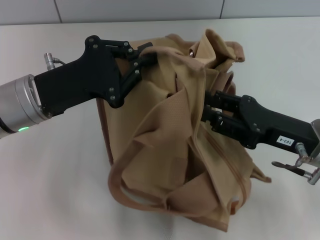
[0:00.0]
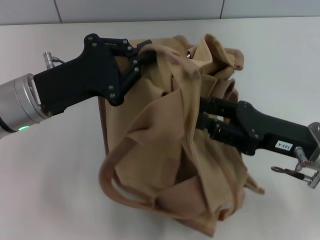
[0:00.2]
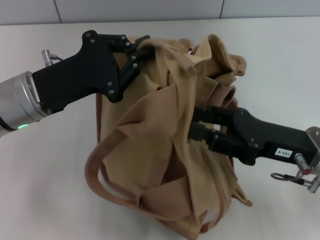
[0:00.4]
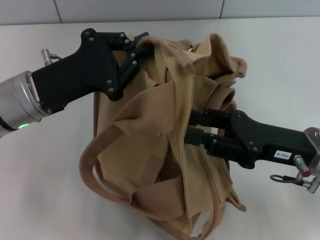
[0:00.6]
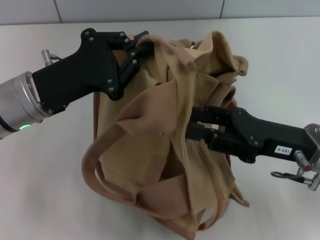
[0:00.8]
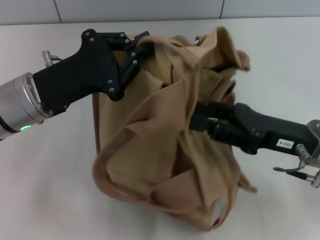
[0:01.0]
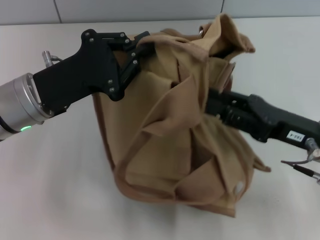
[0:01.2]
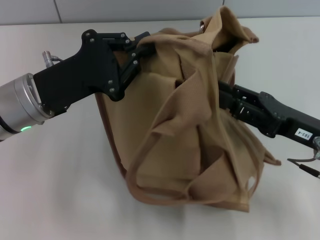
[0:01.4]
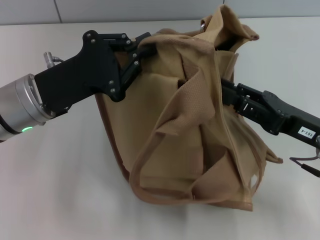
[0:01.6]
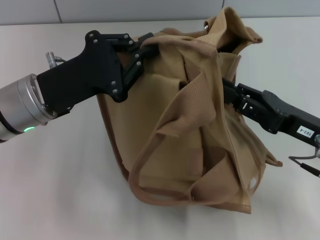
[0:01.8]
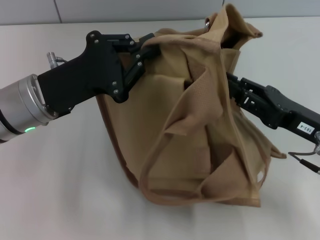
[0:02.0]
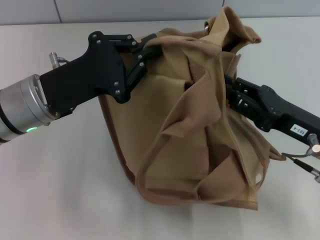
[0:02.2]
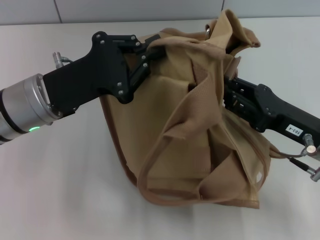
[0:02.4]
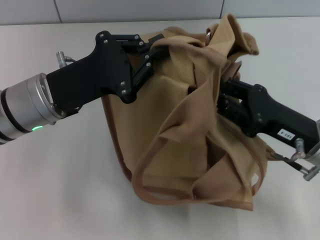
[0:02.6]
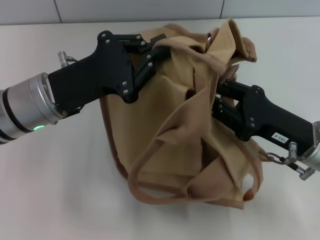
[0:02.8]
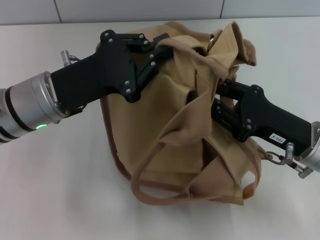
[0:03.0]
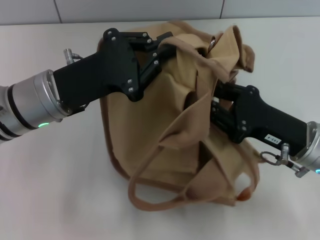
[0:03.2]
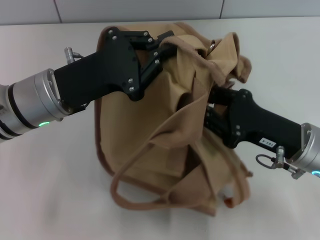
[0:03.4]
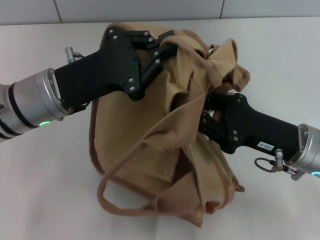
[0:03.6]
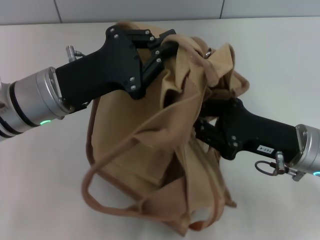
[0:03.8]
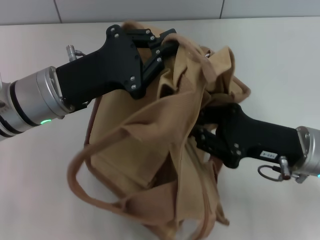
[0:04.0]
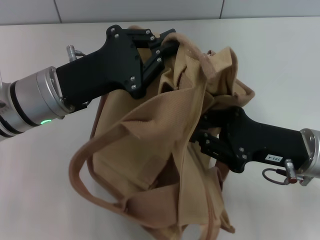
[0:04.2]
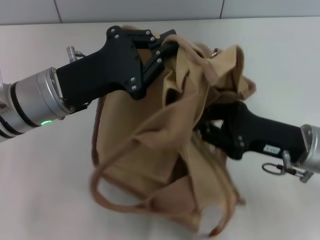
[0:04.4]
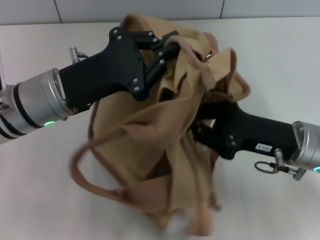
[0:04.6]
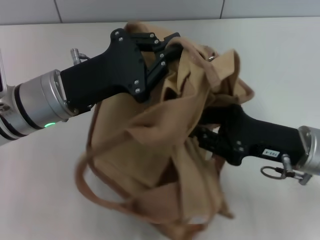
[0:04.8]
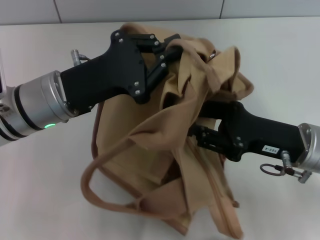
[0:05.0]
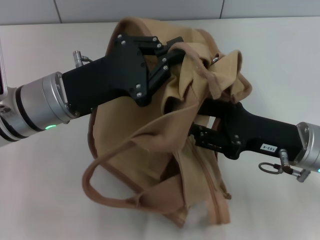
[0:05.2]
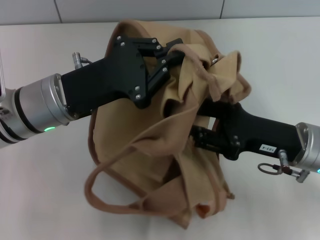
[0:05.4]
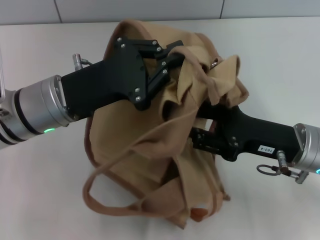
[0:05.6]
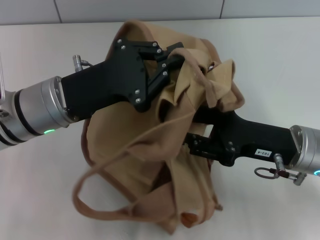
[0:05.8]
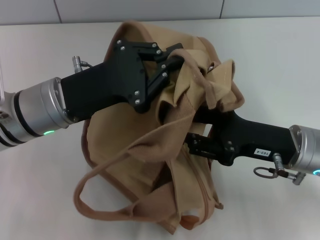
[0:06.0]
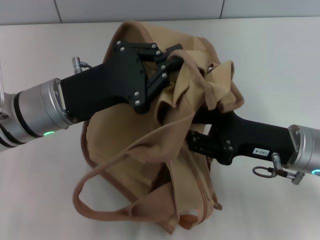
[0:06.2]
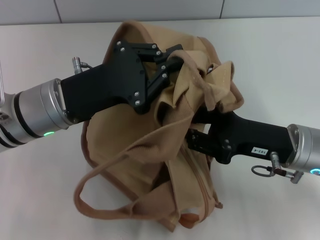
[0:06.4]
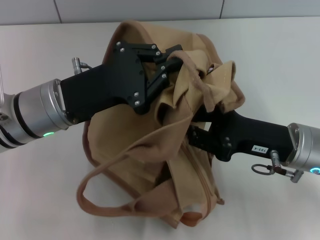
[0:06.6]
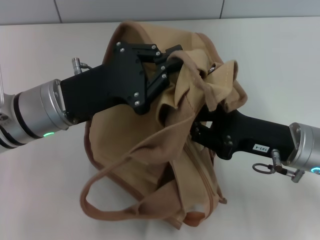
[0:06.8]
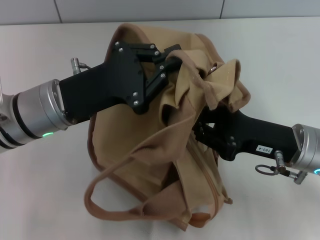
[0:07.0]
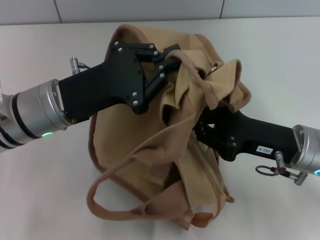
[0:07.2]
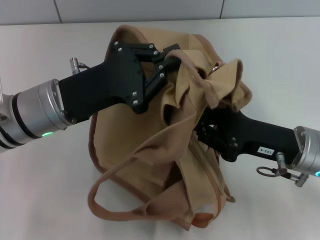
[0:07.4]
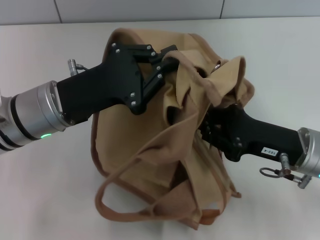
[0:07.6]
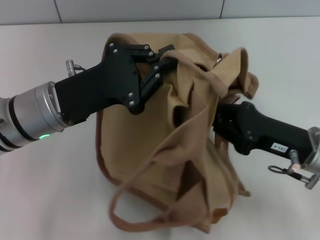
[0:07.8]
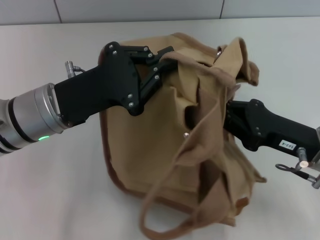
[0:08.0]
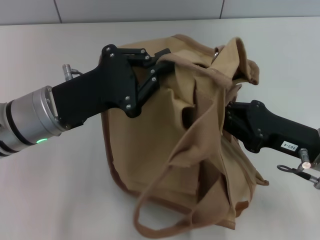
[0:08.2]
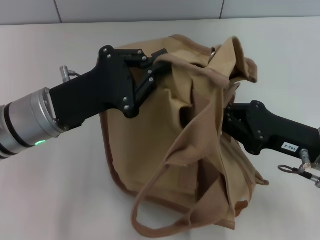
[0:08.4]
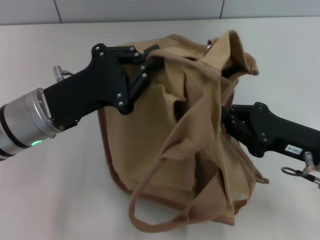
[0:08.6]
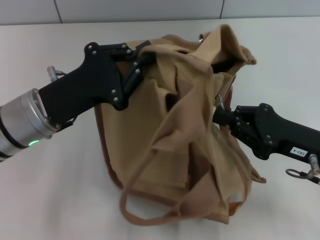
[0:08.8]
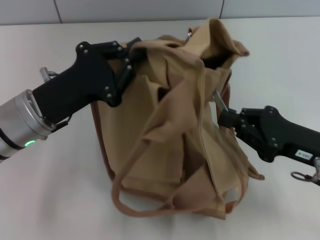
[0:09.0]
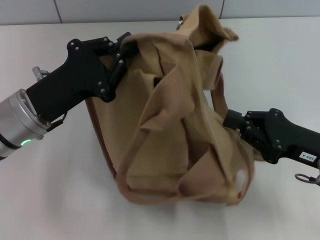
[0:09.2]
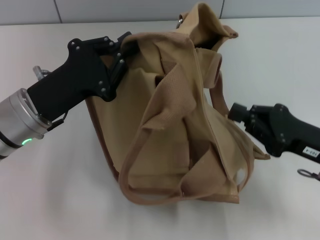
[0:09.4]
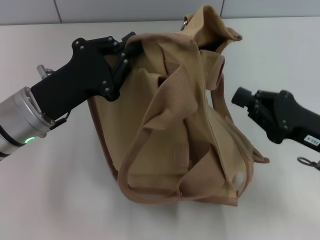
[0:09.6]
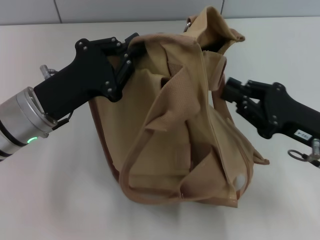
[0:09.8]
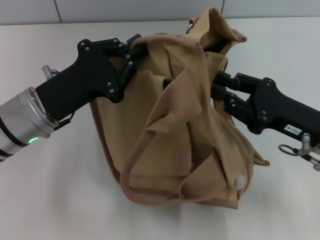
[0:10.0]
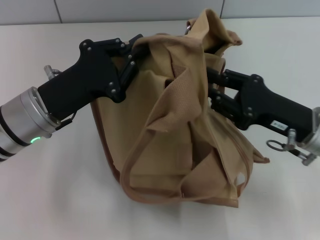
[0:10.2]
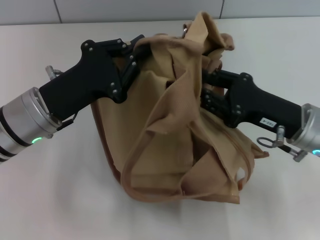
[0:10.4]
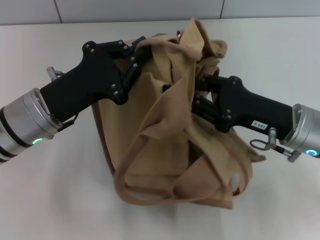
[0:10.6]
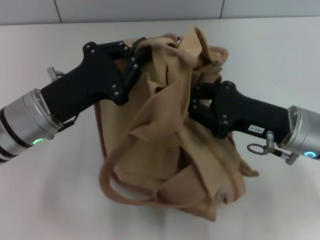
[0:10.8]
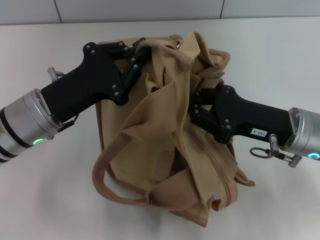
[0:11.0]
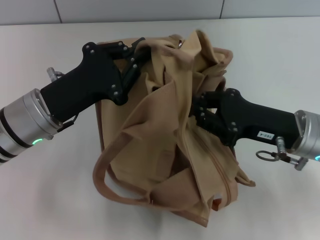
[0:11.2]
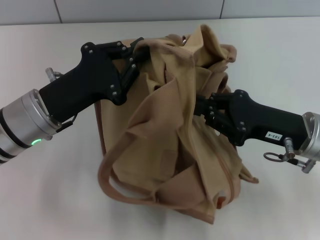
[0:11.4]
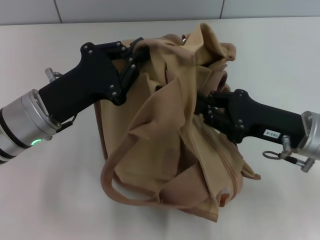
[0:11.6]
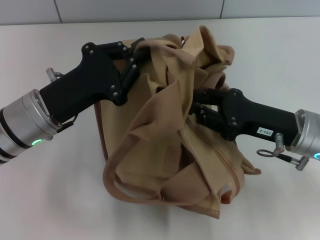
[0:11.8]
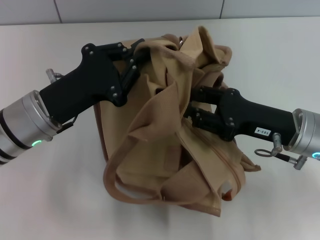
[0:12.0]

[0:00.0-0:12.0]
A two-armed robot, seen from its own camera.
0:04.4 to 0:06.0: The right gripper opens its fingers.
0:06.0 to 0:07.6: The right gripper closes its fingers.
0:09.0 to 0:10.4: The right gripper ends up about 5 cm from where it was, and opens.

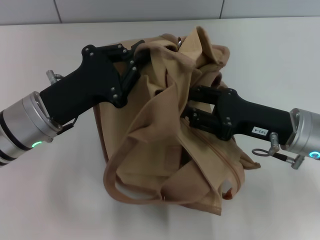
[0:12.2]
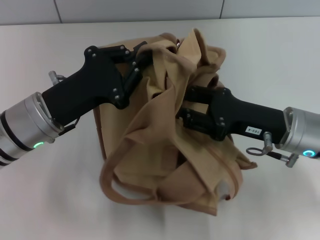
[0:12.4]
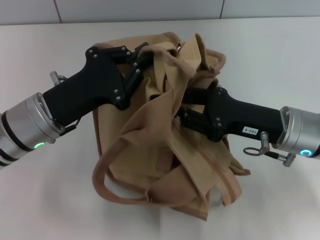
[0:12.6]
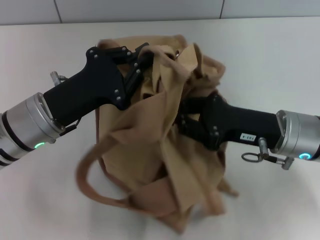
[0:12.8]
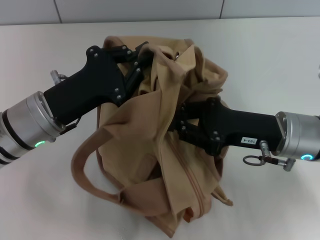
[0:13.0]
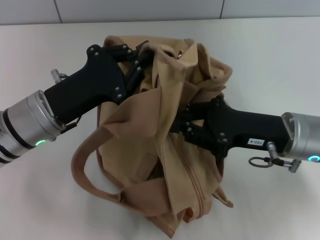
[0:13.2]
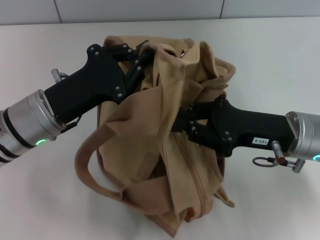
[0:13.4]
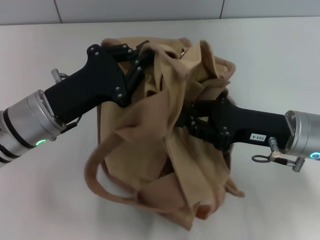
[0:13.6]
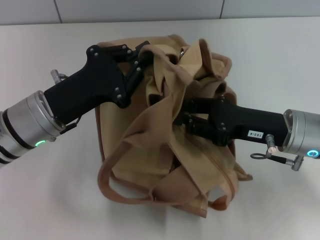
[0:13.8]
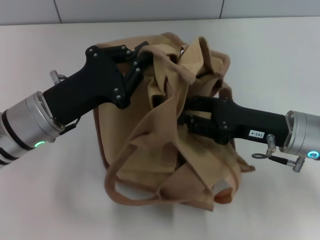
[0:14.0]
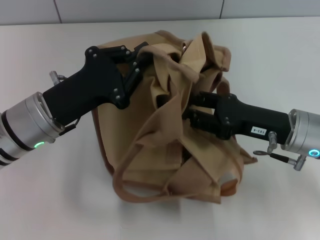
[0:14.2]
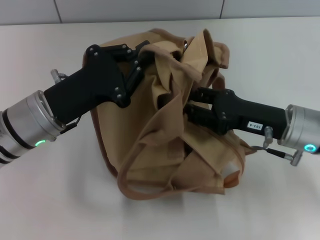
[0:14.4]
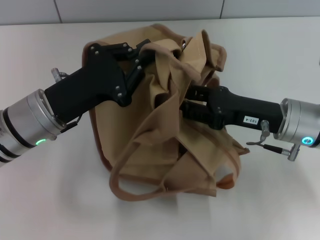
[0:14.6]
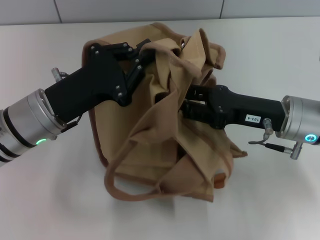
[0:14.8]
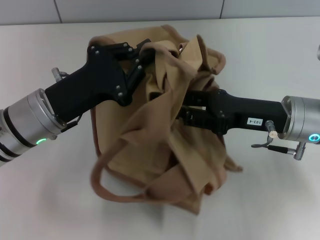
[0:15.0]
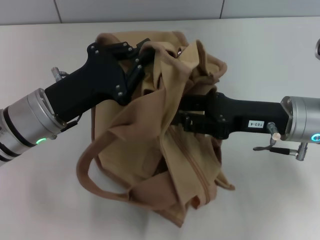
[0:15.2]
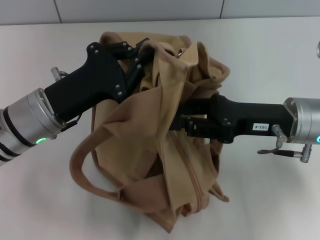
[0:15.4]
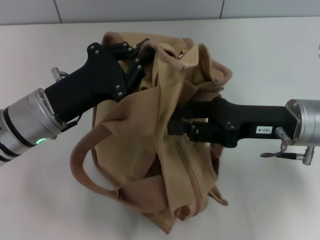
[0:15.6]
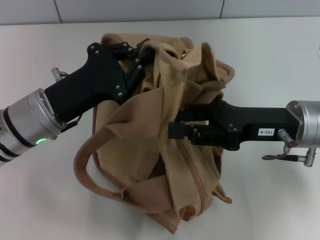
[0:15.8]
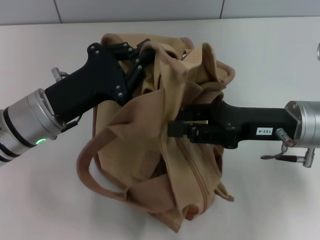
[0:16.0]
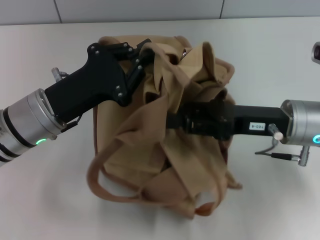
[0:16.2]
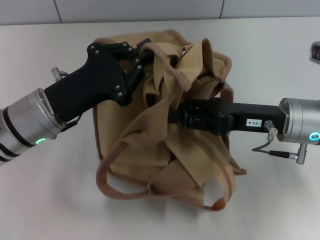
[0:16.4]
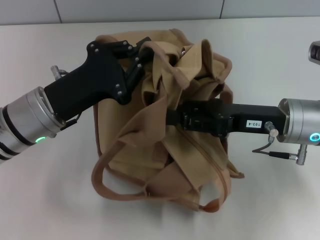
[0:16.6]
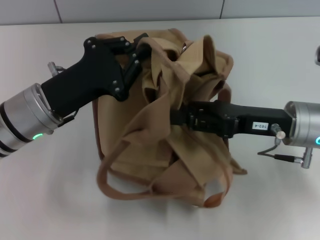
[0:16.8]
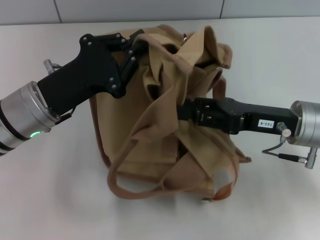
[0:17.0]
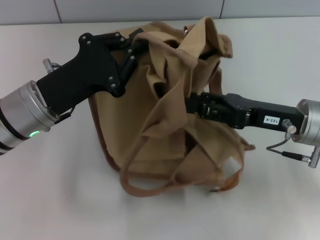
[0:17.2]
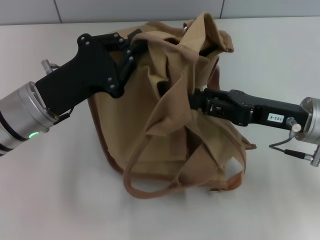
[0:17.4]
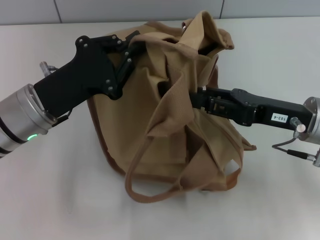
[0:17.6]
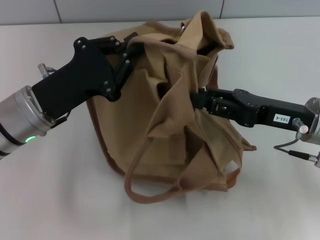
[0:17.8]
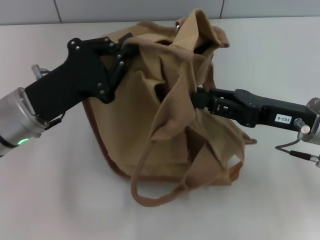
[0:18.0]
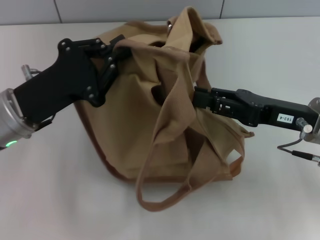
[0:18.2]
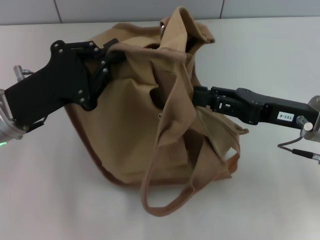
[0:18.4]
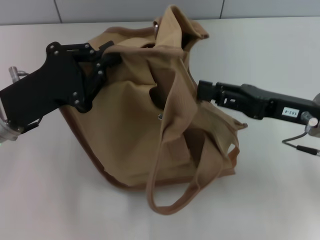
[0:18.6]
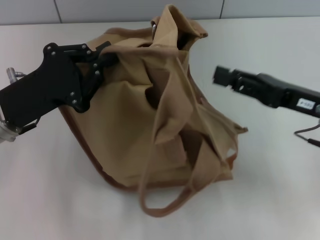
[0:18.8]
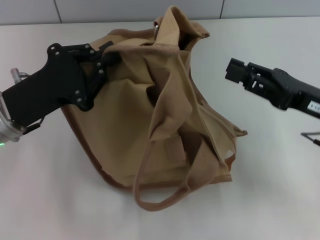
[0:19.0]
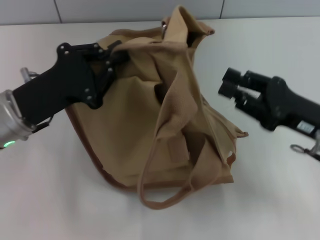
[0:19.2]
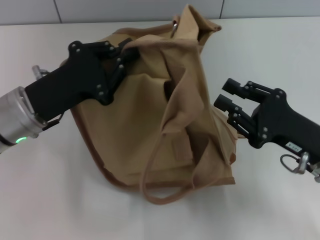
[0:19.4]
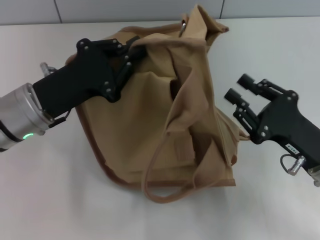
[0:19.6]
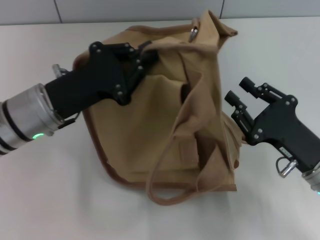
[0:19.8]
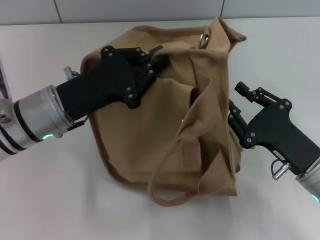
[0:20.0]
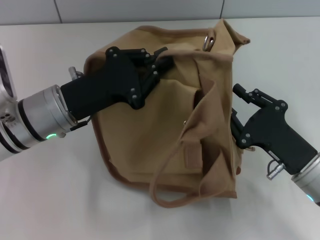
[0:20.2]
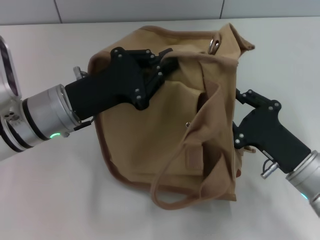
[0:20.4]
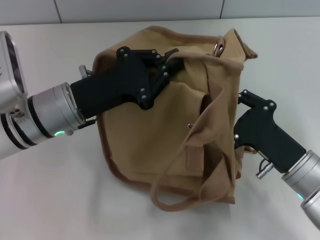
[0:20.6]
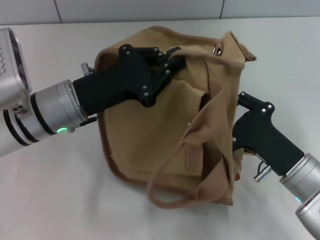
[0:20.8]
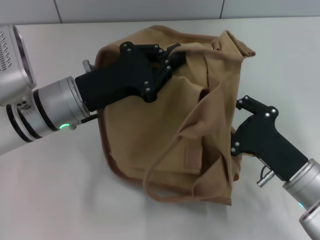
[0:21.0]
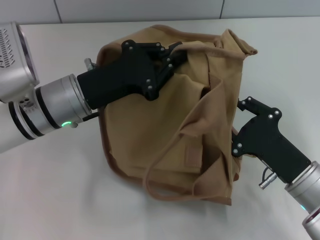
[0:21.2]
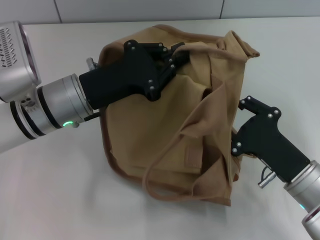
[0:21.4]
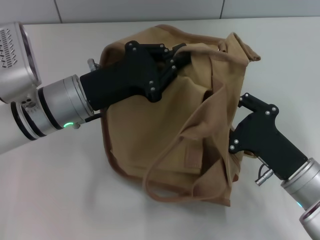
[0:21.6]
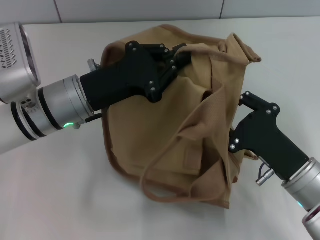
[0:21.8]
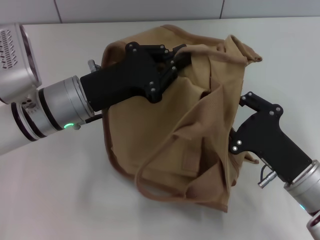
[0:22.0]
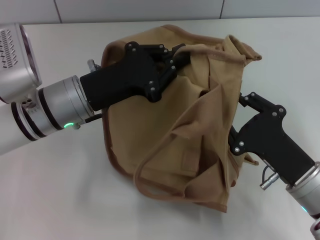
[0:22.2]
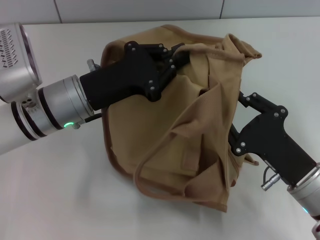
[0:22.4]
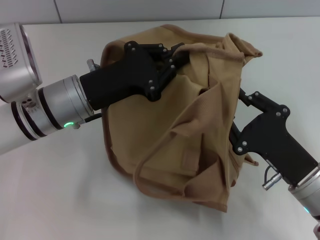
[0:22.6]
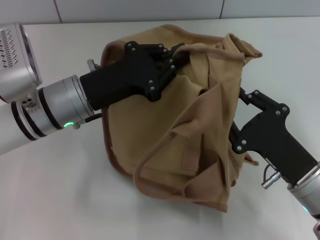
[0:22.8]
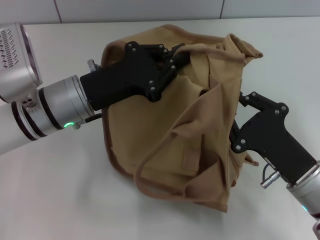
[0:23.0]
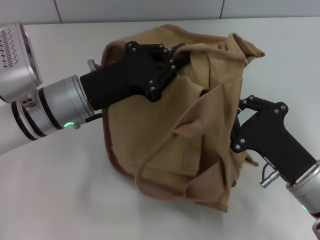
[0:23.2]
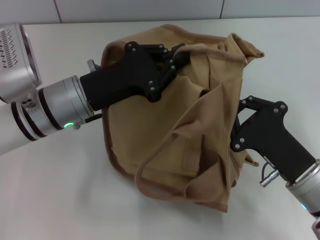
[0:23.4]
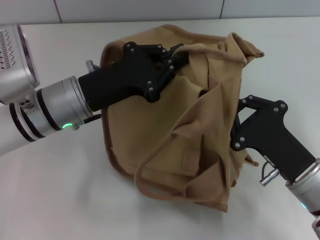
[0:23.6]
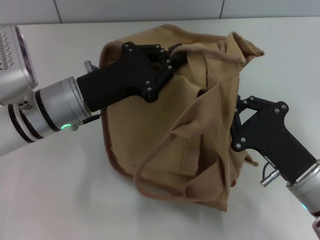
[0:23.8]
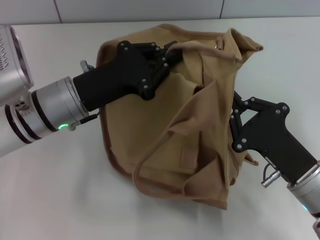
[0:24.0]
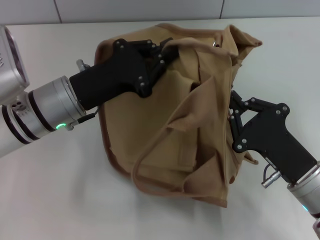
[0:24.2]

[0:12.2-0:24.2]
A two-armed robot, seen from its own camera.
0:12.2 to 0:13.8: There are only small adjustments of the grippers.
0:15.2 to 0:16.6: The grippers stay close to where they were, moving slightly.
0:18.2 to 0:19.8: The right gripper is displaced backward and downward by roughly 10 cm.
0:21.2 to 0:22.6: The grippers move only a little.
0:22.6 to 0:24.2: The right gripper closes.
